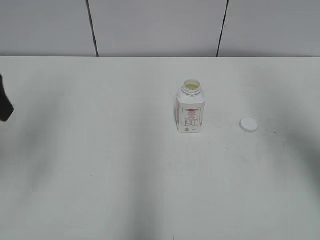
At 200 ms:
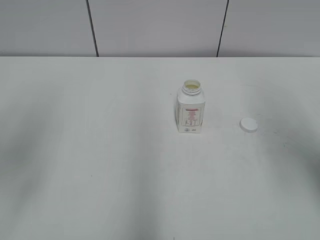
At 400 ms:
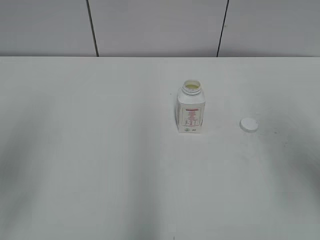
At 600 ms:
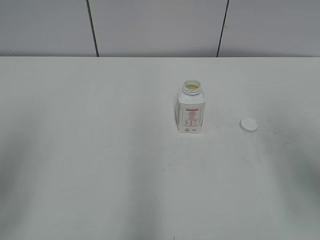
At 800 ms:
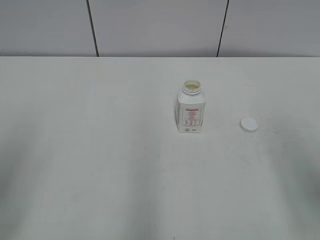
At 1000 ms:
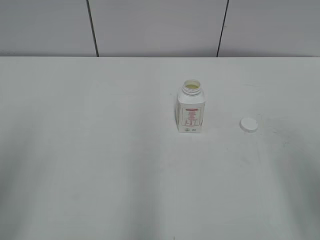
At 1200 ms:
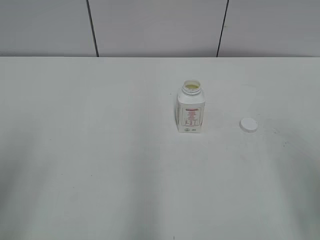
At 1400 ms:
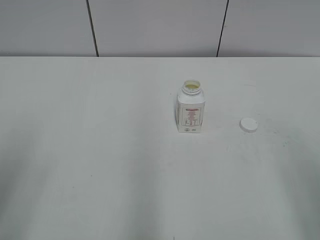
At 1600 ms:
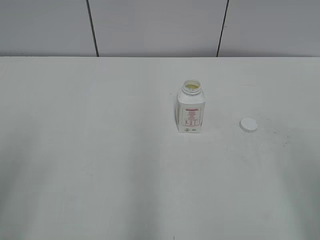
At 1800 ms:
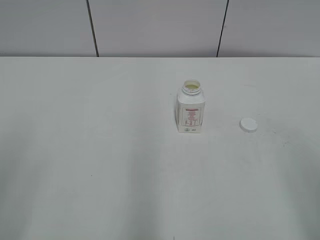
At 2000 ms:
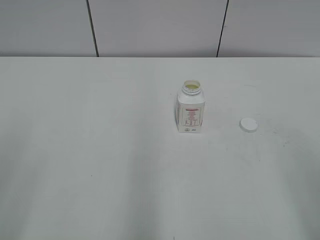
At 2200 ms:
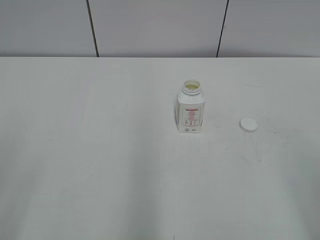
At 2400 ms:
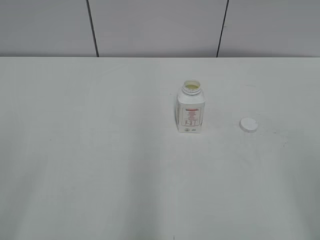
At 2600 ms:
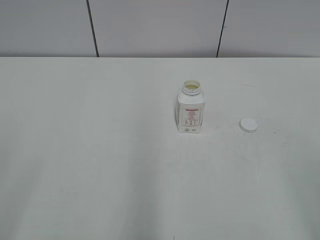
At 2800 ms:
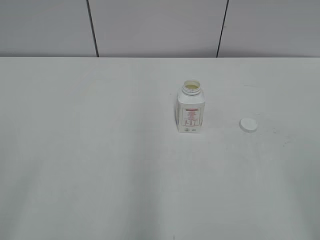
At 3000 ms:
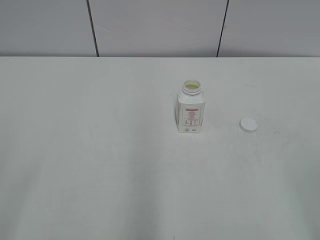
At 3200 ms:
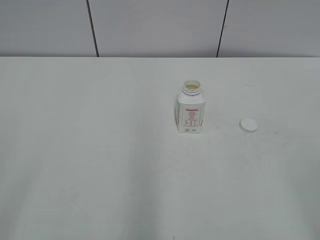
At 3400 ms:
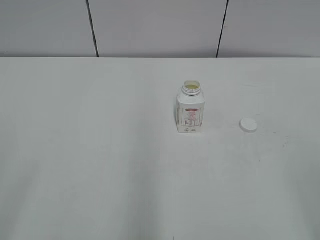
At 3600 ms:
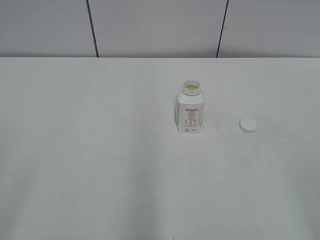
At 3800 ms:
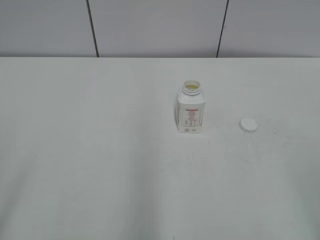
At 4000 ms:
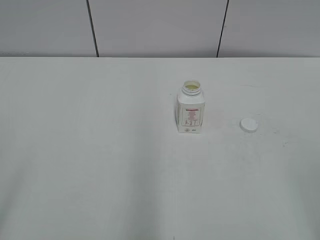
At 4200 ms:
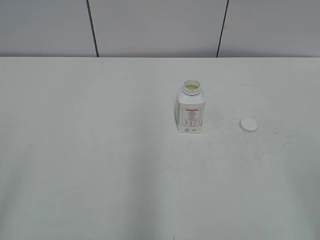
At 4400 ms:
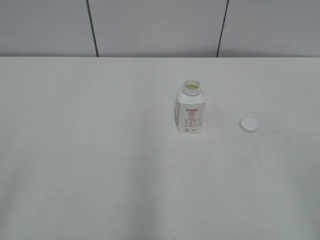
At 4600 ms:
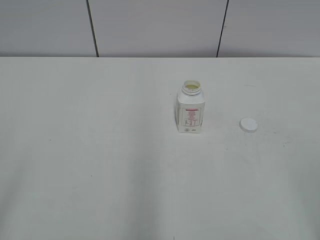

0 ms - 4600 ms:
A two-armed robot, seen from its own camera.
0 ms - 1600 ms: The left gripper is displaced backward by about 15 cm; the right gripper heads backward and downward, covering approximately 20 cm.
